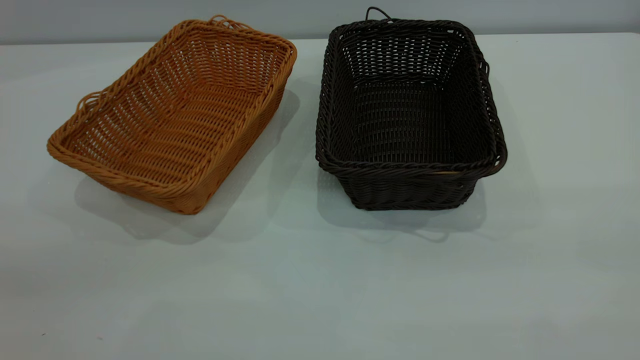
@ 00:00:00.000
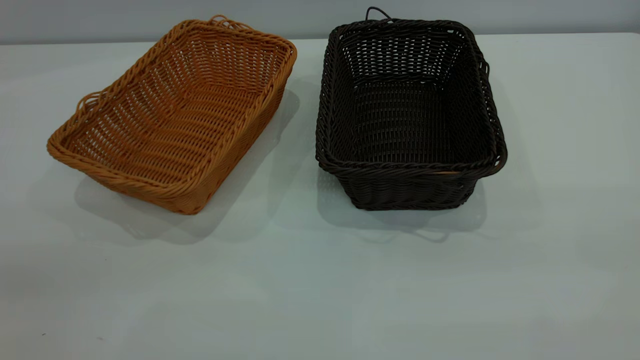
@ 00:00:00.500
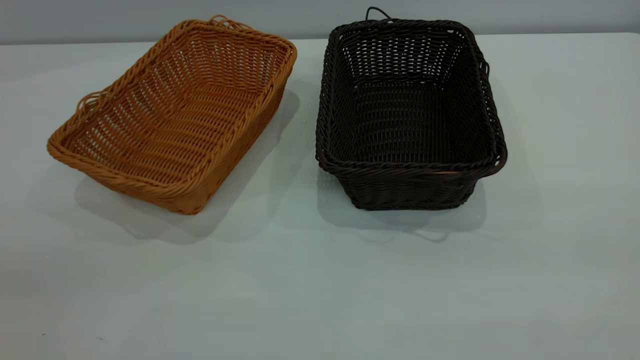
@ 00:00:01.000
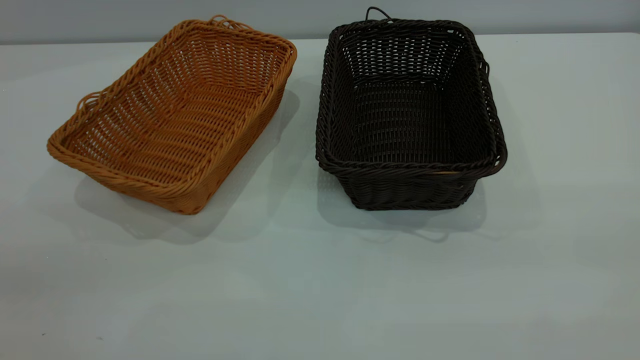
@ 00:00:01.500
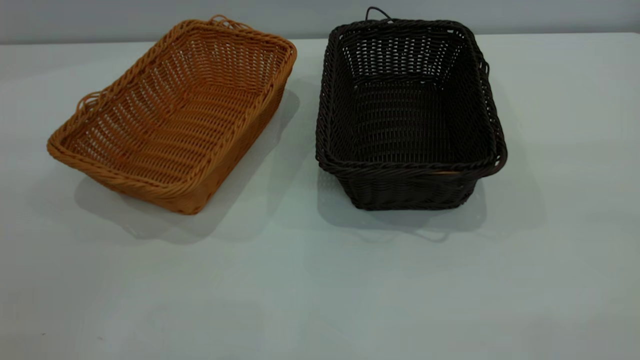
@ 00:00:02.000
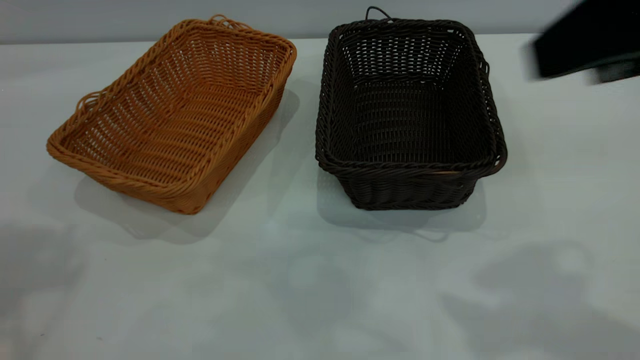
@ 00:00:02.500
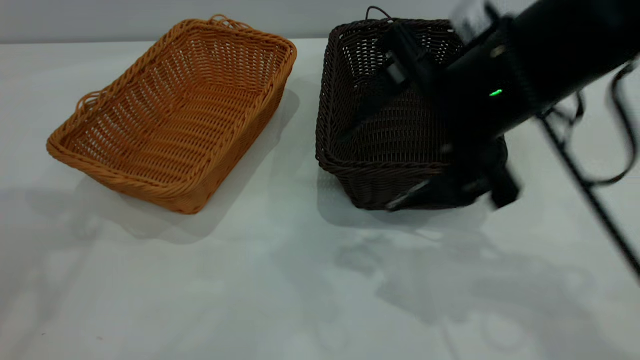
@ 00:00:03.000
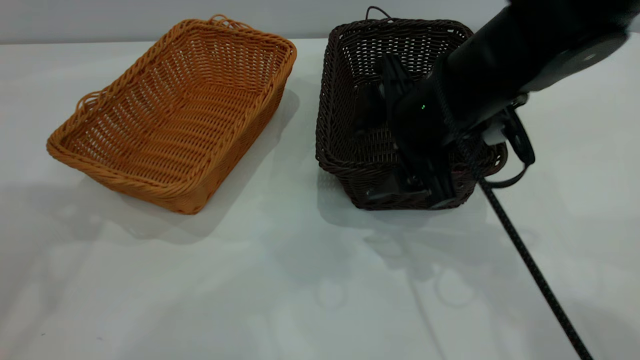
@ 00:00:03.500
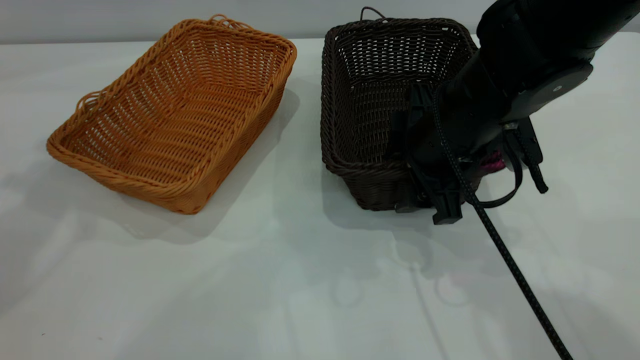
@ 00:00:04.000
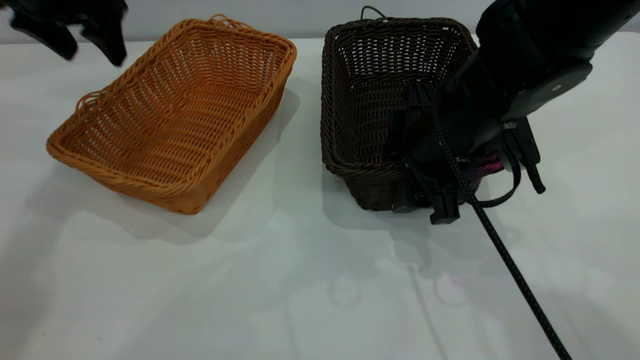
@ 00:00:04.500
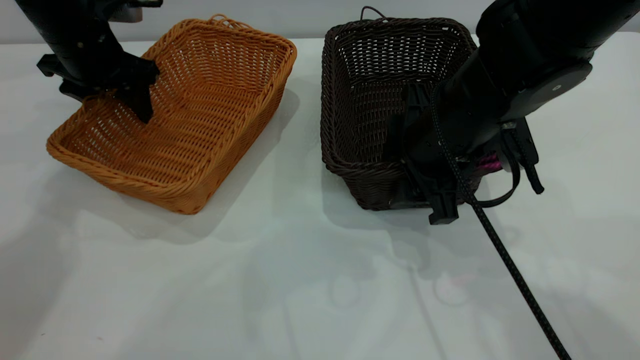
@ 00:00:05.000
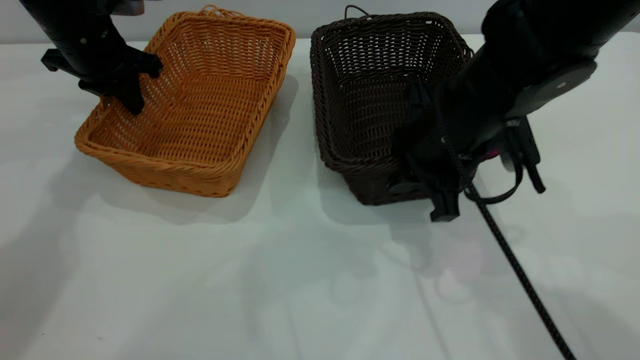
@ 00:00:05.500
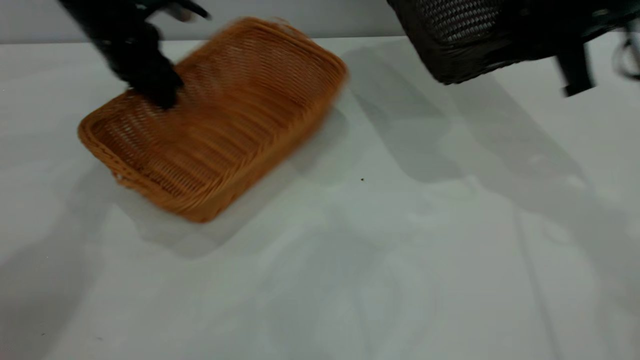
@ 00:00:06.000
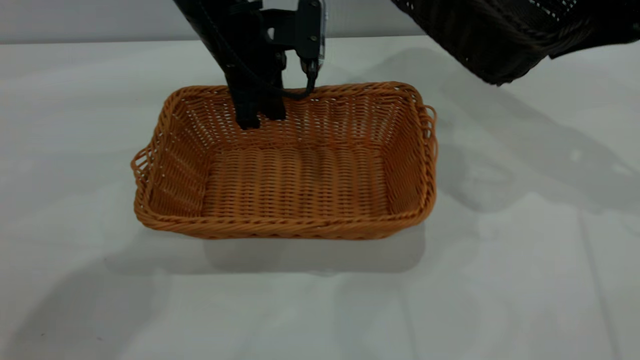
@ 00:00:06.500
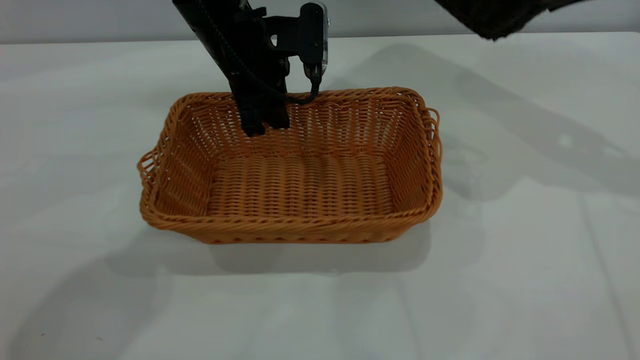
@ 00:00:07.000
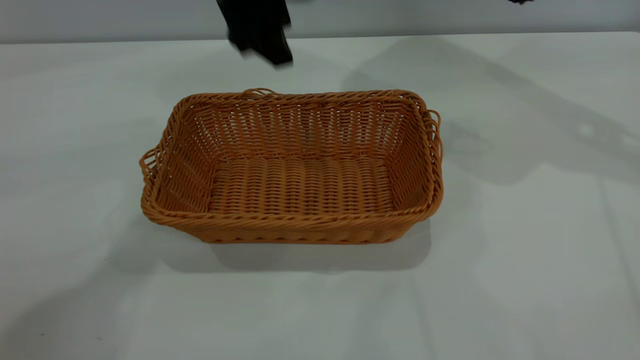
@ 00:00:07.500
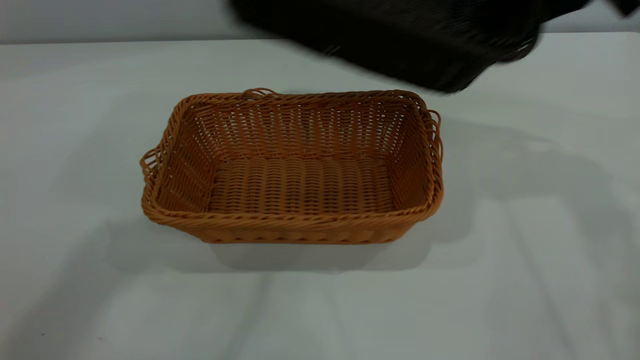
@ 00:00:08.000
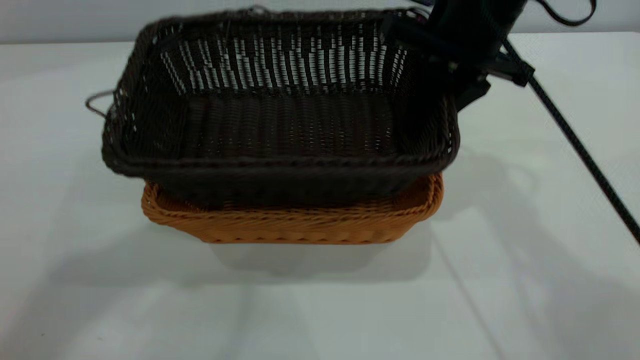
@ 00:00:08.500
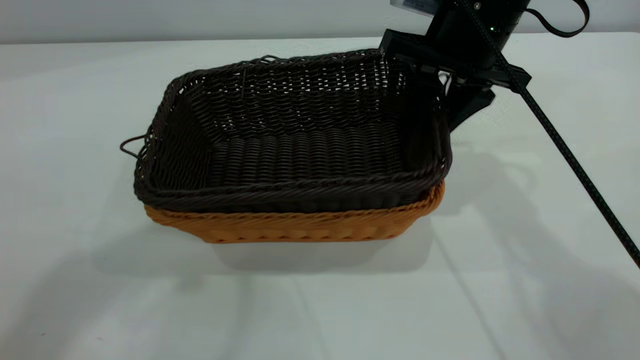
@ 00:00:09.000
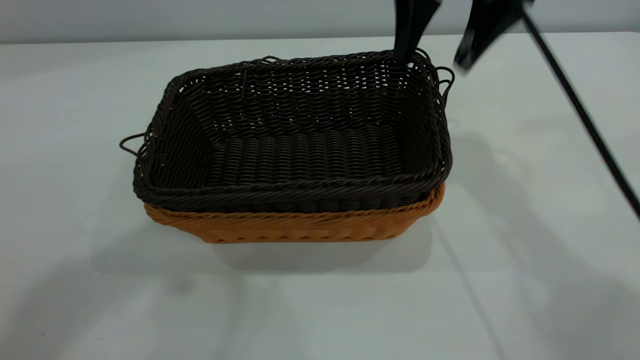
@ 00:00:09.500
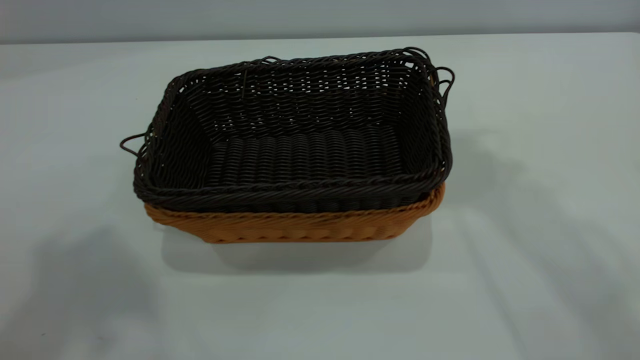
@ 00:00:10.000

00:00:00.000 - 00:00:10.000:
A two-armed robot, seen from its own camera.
Task of the whole recording: the left gripper grasp the brown basket and place it in the center of the table, the right gripper grasp the black basket and place it inside the brown one.
Step, 00:00:00.000 - 00:00:05.500: Pick up the light basket with the right gripper.
Step, 00:00:06.000 - 00:00:07.000: Place the light-colored basket in the center.
Step, 00:00:07.500 - 00:00:09.500: Place the dark basket on top of the light basket.
00:00:02.000 - 00:00:04.000: The left gripper heads forward, covering some 30 cm; the right gripper shifts about 40 cm downward, forward and to the left.
00:00:04.000 - 00:00:06.000: The right gripper travels to the right, upward and forward by approximately 15 cm, and closes. The left gripper travels downward, forward and to the right by approximately 25 cm, and closes its fingers.
00:00:06.000 - 00:00:08.000: The left gripper is displaced upward and backward by approximately 40 cm, and opens. The right gripper shifts roughly 5 cm upward, and moves roughly 10 cm to the right and comes back.
00:00:08.000 - 00:00:10.000: The right gripper heads upward, covering some 20 cm, and opens up. Meanwhile the left gripper goes some 15 cm backward, upward and to the left.

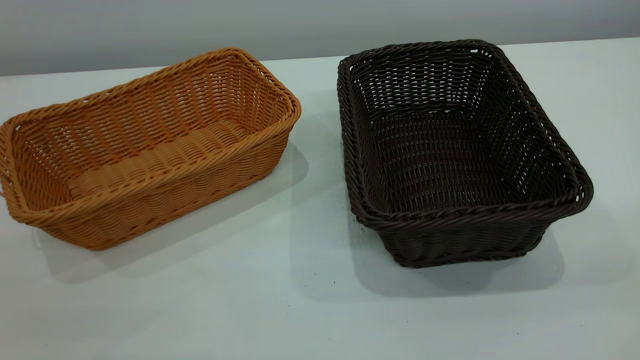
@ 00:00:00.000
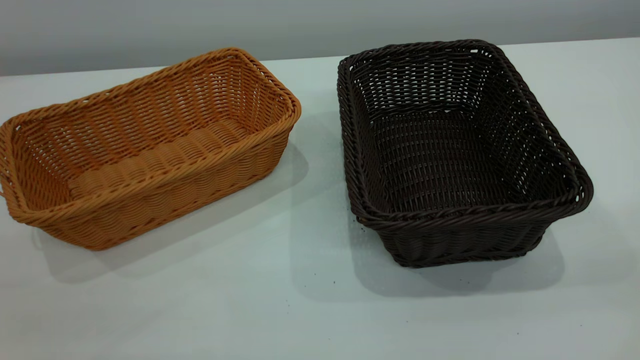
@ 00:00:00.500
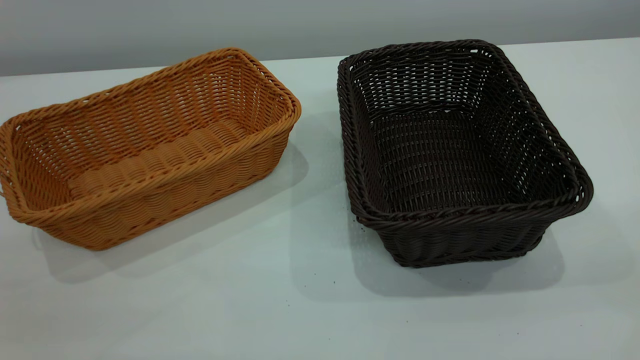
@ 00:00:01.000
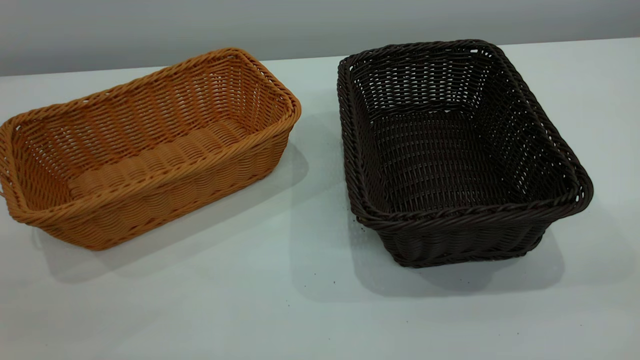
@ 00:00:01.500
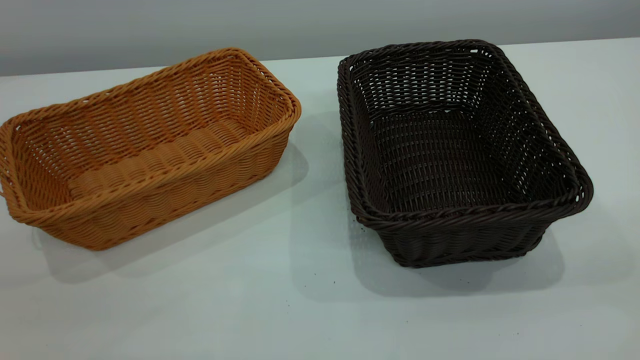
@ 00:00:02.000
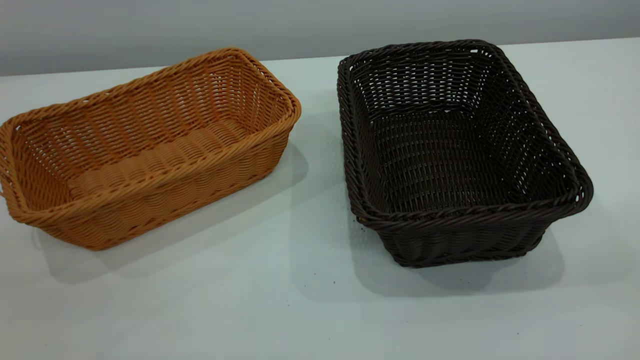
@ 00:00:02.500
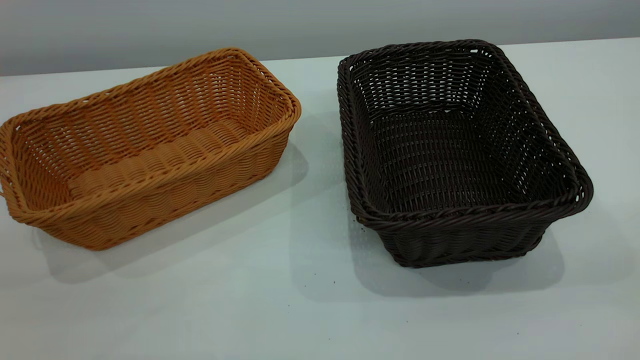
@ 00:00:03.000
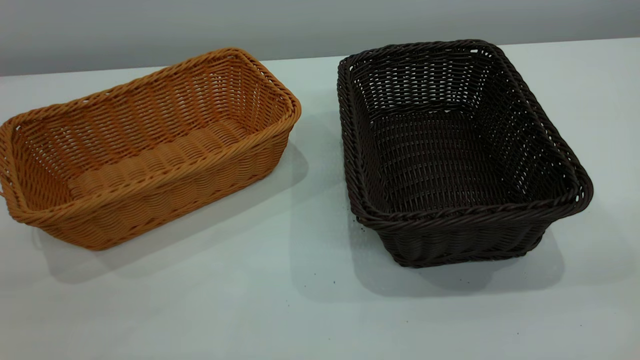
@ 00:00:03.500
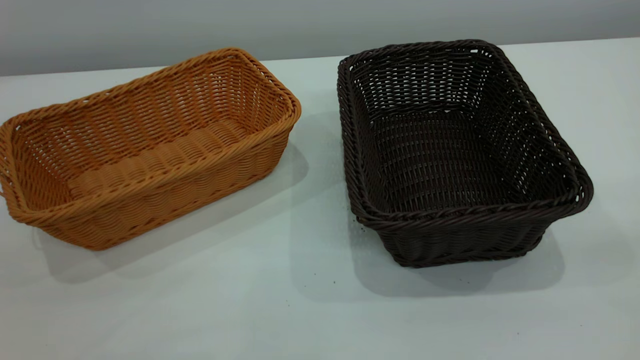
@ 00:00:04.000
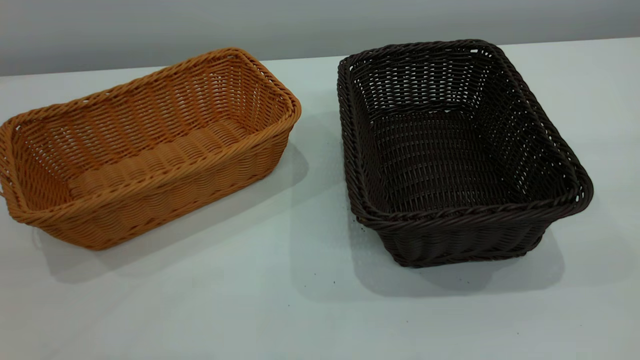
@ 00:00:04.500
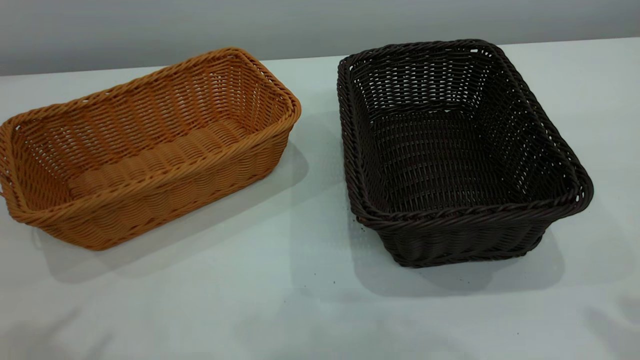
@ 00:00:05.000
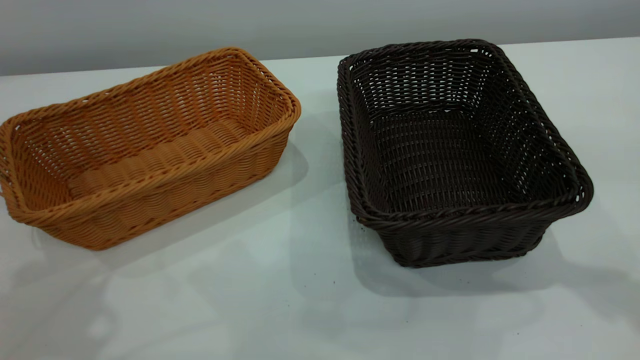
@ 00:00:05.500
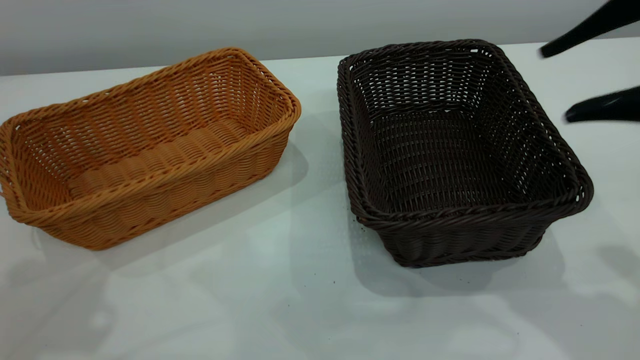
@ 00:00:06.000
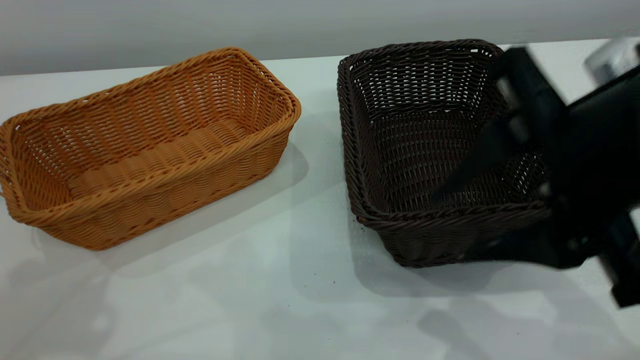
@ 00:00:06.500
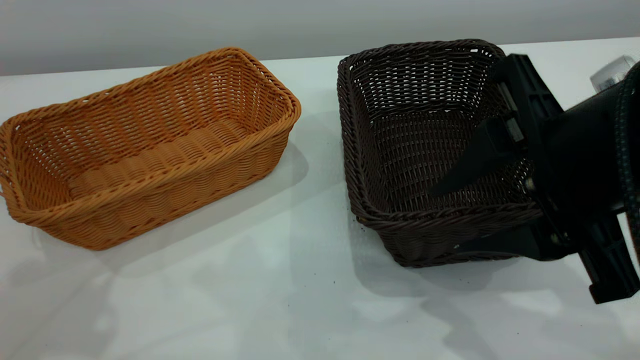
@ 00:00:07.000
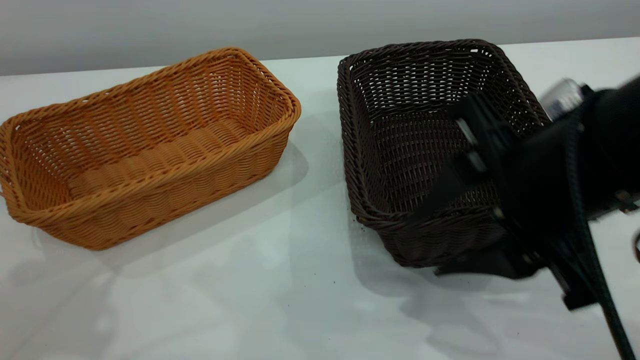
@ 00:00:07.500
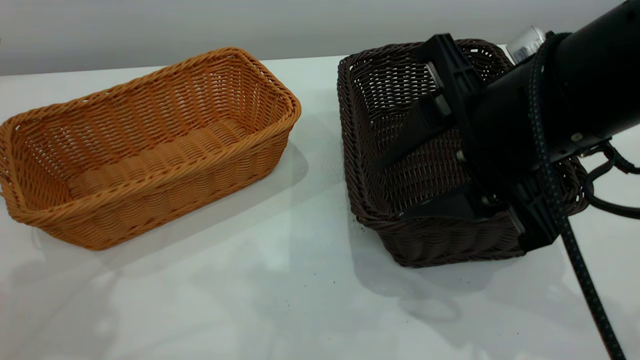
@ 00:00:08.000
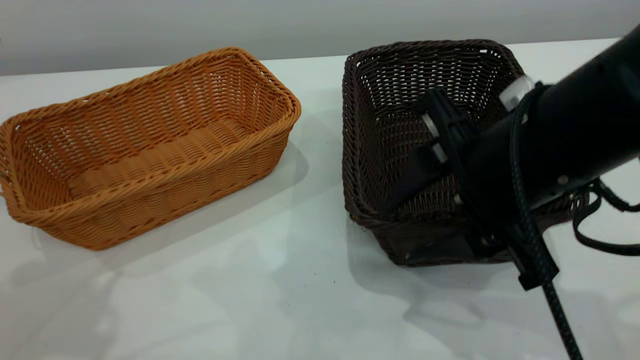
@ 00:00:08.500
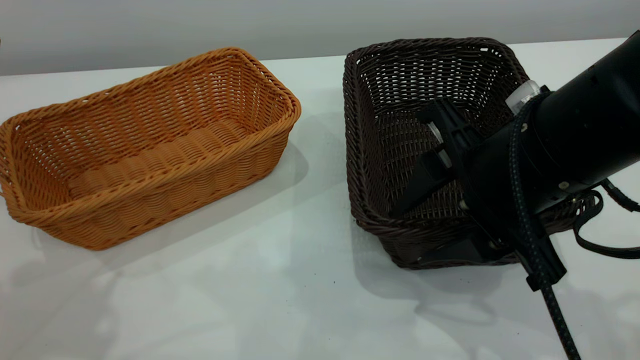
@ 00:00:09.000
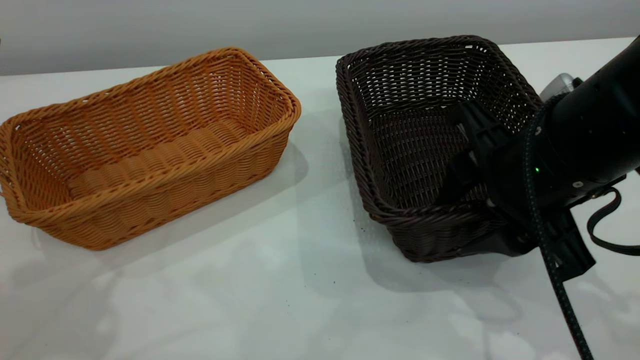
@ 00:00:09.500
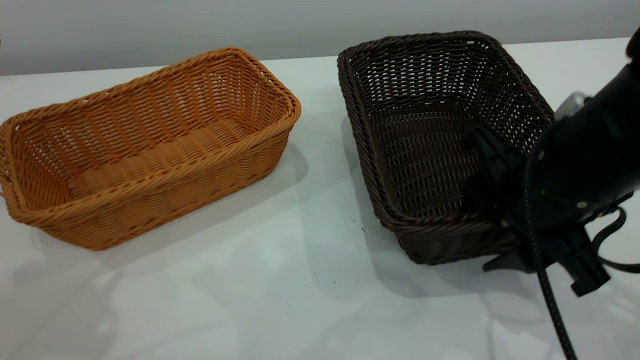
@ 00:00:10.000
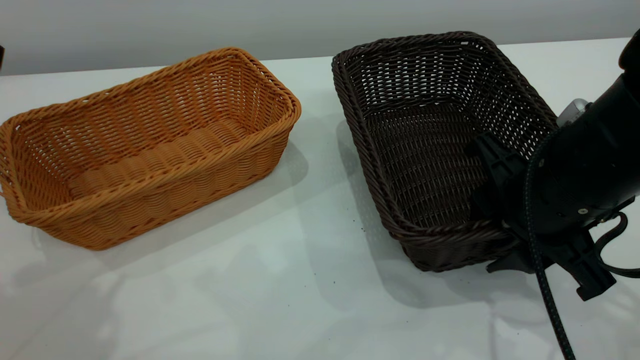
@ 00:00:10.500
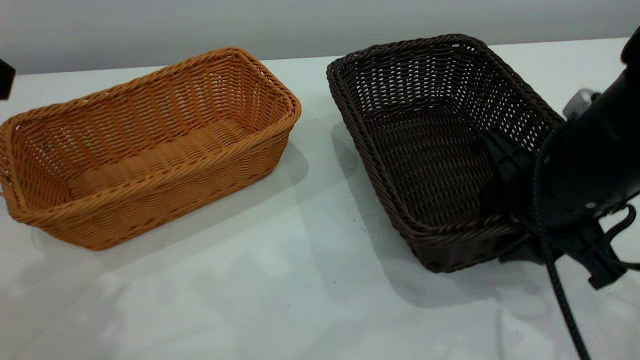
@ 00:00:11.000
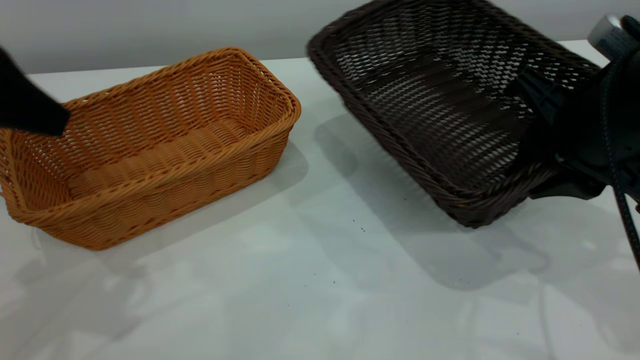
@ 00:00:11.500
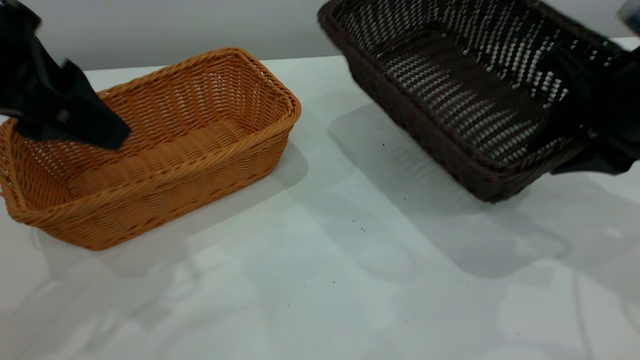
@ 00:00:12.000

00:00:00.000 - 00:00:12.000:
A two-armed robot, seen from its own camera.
Task of the whole recording: the left gripper grasp the brown basket and place it in the center of the table, the right gripper grasp the black basket and place it inside the brown one.
Step, 00:00:00.000 - 00:00:11.500: Pick up the light basket with the right gripper.
00:00:04.000 - 00:00:06.000: The right gripper shifts about 20 cm forward, downward and to the left, and opens.
00:00:06.000 - 00:00:08.000: The right gripper is displaced to the left and downward by roughly 10 cm.
00:00:08.000 - 00:00:10.000: The right gripper goes roughly 5 cm downward.
00:00:10.000 - 00:00:12.000: The right gripper shifts roughly 5 cm to the right. Meanwhile the left gripper is displaced forward and downward by approximately 10 cm.
